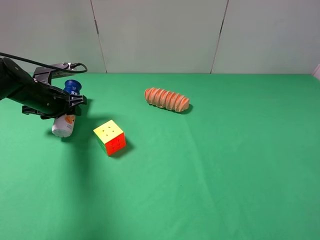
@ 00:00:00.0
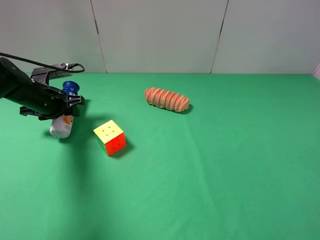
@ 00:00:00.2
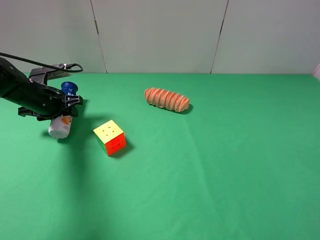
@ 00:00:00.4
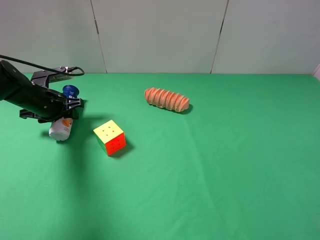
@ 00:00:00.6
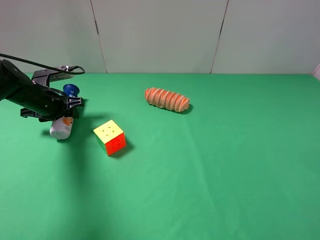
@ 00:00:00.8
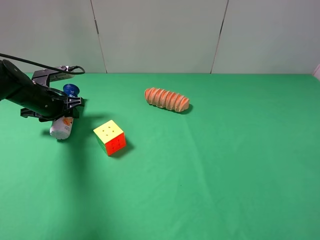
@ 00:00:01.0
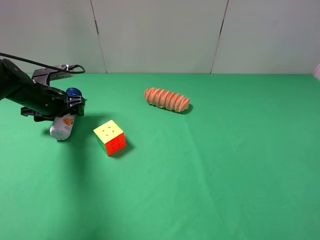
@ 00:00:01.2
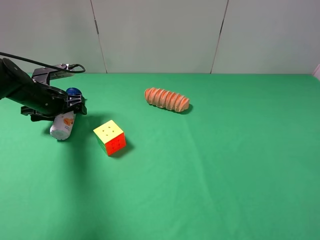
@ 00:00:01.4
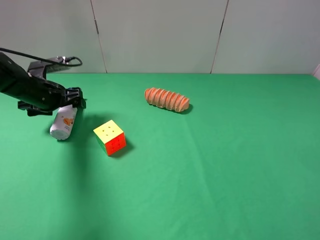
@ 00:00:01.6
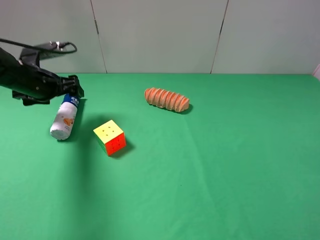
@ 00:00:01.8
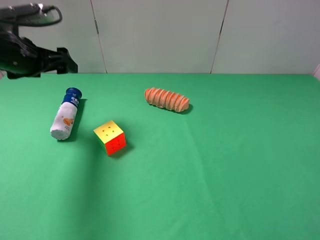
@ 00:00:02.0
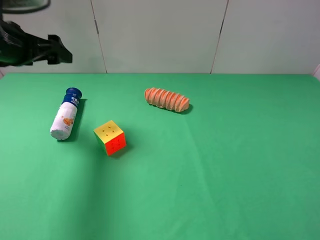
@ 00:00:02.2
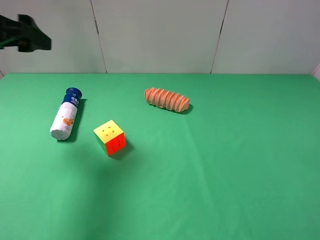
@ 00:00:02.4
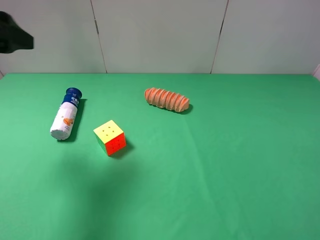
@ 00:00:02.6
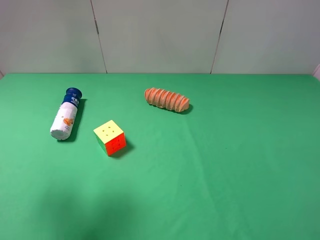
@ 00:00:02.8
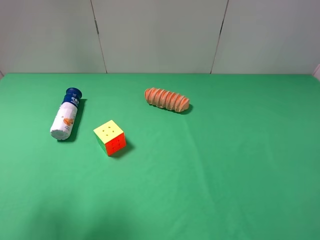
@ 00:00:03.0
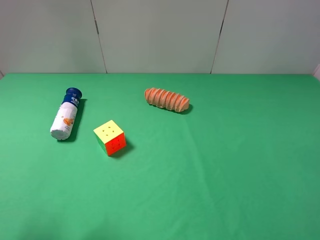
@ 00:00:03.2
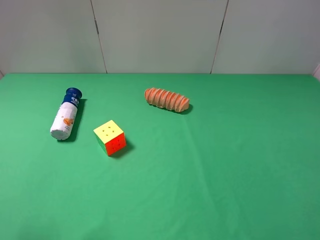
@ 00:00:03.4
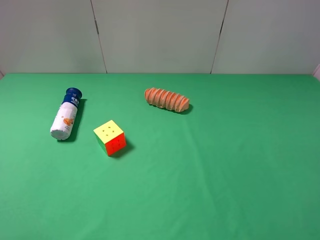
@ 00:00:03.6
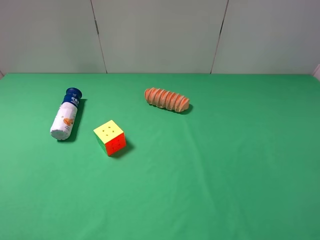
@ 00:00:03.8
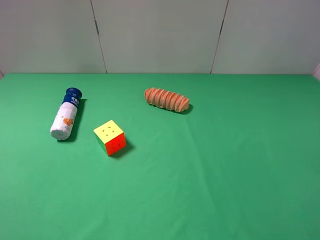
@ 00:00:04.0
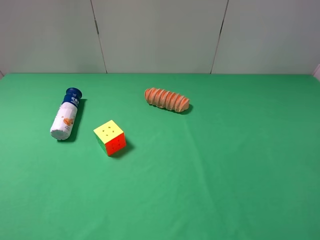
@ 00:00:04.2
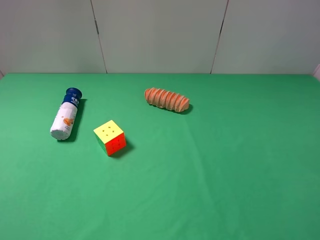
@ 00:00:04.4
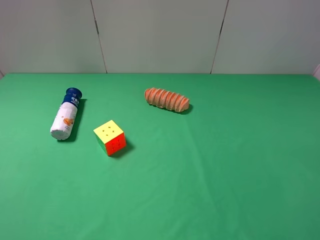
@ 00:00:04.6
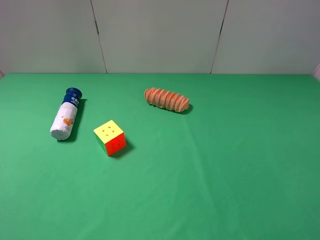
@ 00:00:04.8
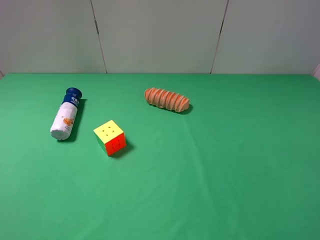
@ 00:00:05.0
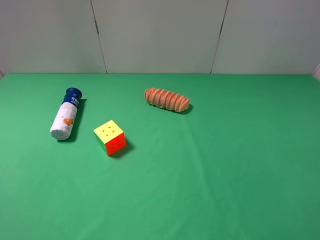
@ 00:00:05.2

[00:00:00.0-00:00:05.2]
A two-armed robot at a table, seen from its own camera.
Task of the whole recording: use the right gripper to pick up the item and transfer it from the right gripper to the left gripper.
00:00:00.0 to 00:00:01.8: The left gripper travels upward by about 5 cm, and opens.
00:00:01.8 to 00:00:03.4: The left gripper is displaced backward and upward by some 35 cm.
